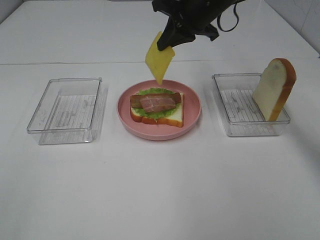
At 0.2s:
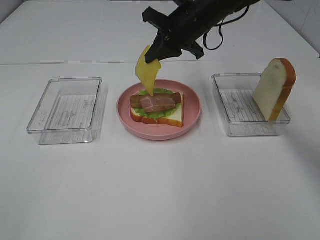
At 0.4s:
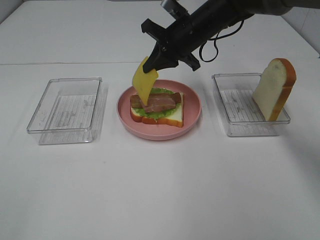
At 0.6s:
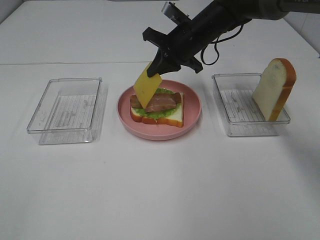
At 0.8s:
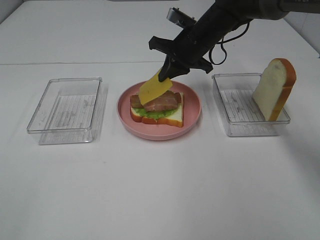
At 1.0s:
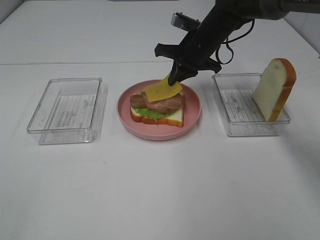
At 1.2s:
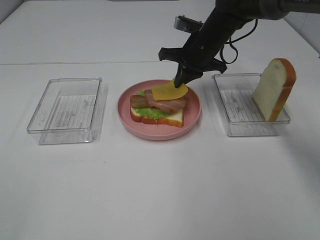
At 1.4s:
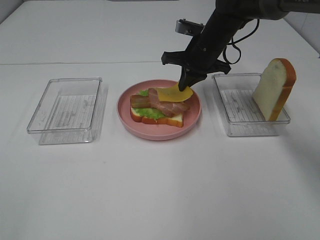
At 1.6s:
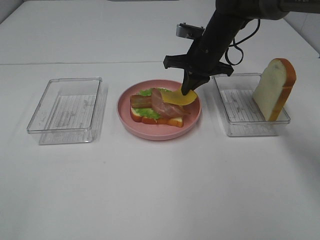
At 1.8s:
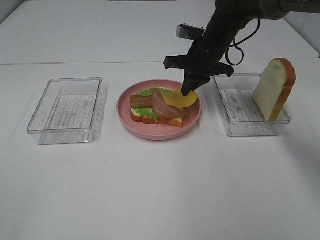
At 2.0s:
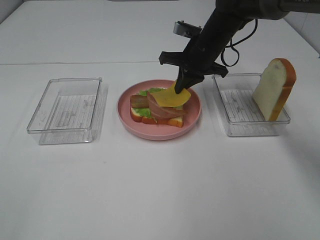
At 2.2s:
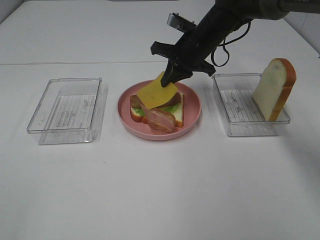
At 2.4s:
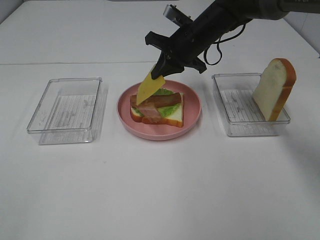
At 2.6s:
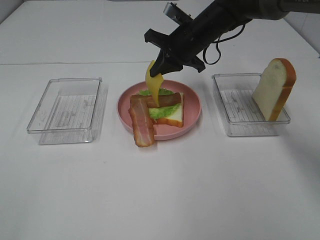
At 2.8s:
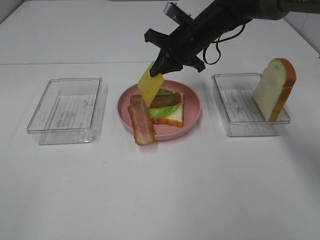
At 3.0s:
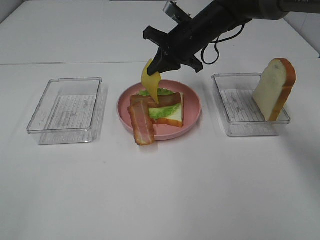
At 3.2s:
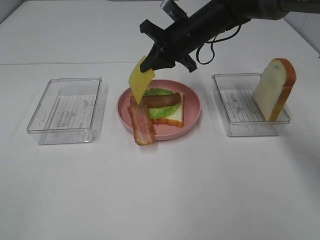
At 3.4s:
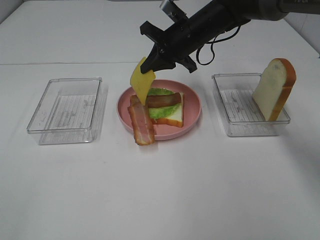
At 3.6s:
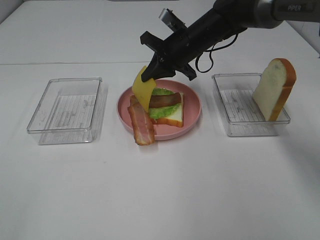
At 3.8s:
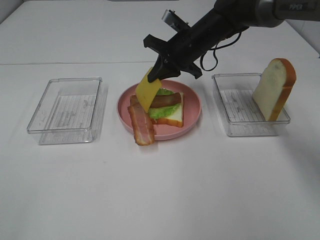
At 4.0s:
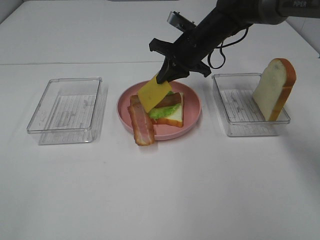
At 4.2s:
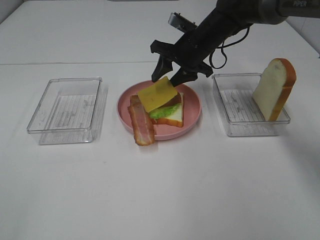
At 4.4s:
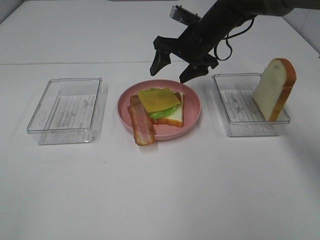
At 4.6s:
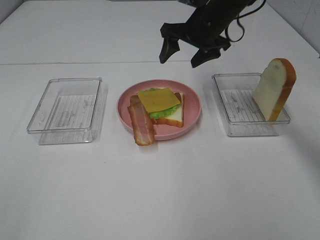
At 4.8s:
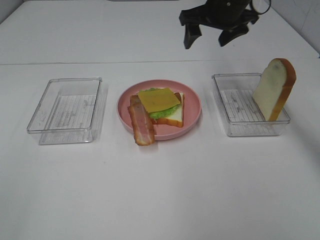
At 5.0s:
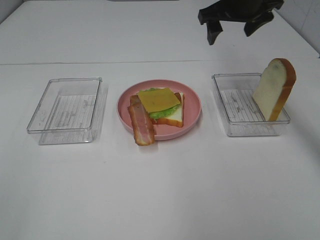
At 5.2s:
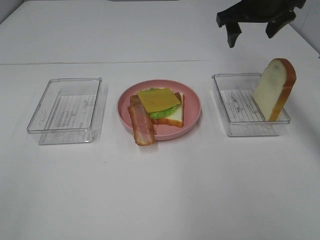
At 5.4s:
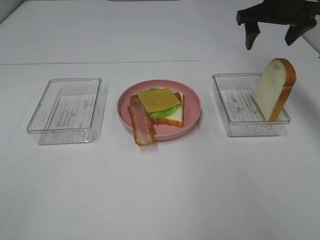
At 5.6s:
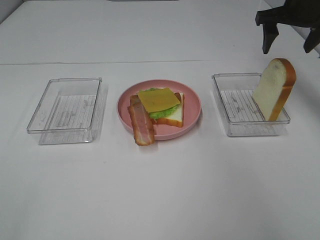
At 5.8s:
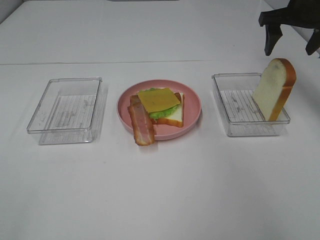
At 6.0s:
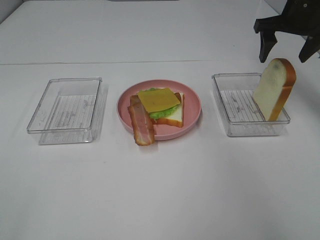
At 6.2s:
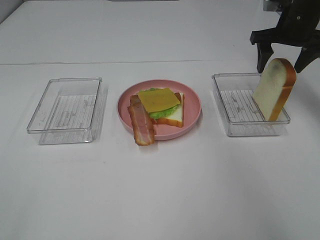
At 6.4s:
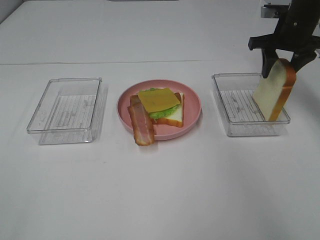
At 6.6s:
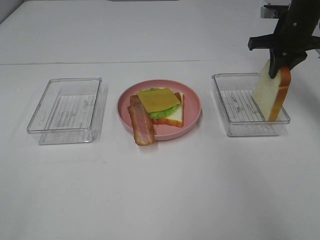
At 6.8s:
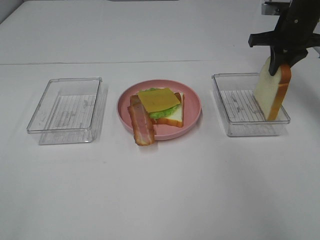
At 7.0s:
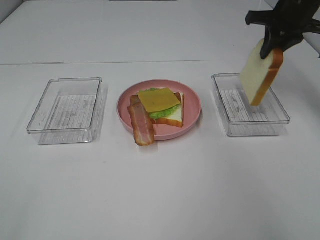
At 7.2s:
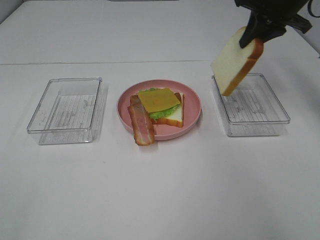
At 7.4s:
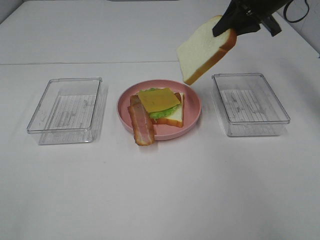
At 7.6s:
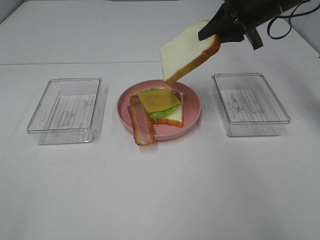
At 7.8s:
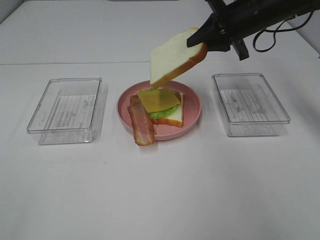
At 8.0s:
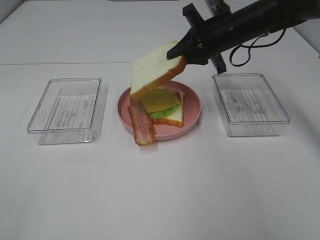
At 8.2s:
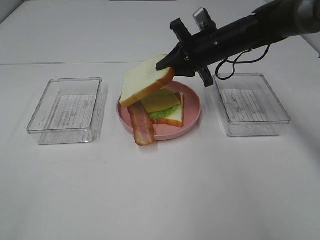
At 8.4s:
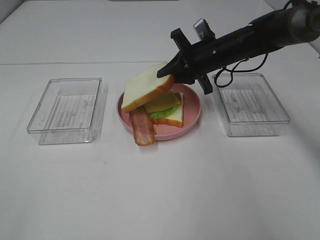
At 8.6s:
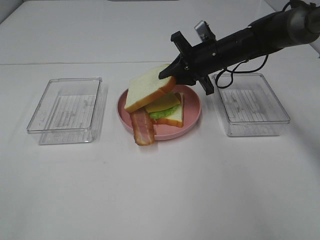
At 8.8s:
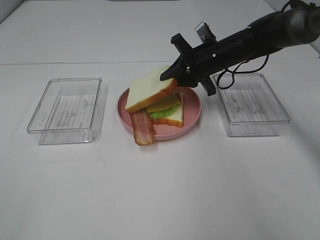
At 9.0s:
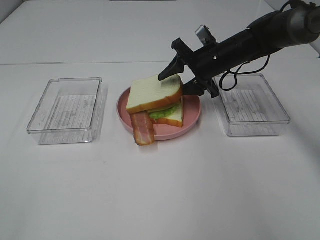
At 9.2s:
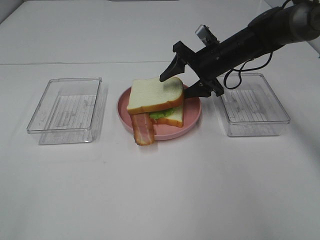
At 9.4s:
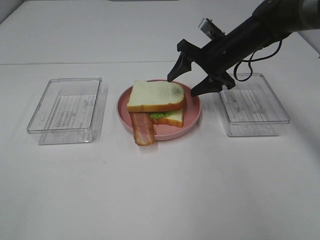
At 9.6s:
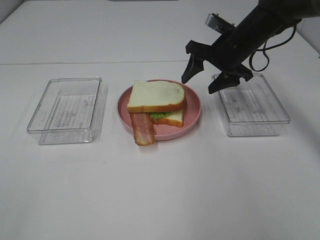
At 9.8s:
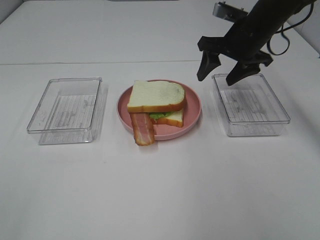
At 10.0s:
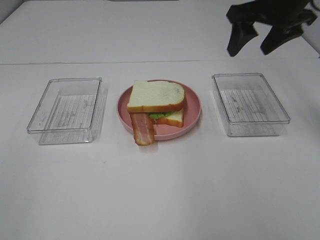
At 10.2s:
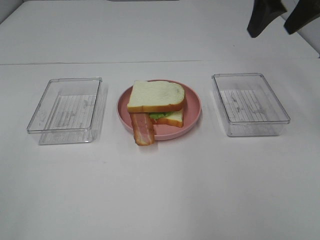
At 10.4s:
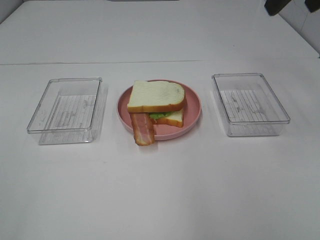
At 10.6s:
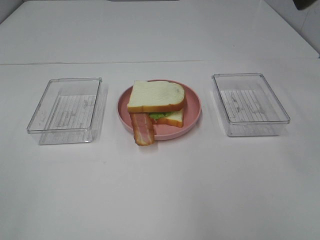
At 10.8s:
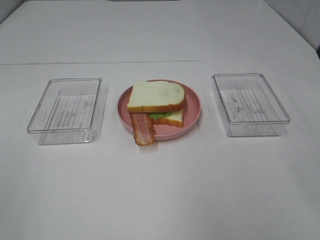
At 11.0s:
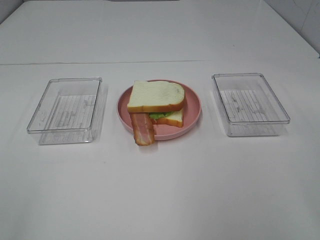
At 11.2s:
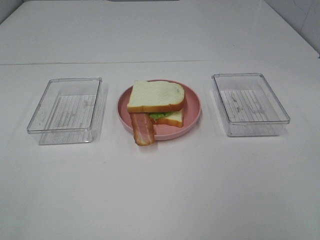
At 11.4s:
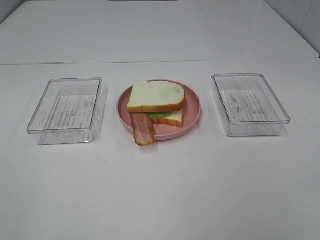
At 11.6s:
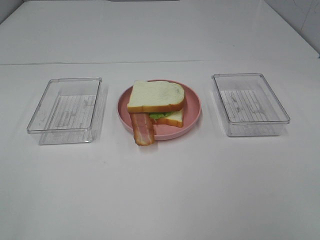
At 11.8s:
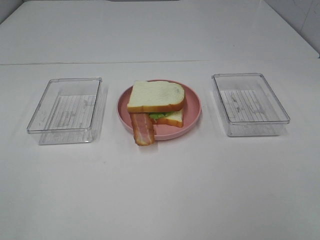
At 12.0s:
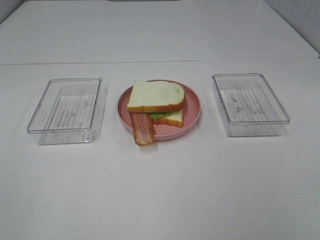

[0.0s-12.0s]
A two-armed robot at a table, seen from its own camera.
Task of the whole recording: Make sandwiches.
Step, 0.0s to 4.4s: Right hand:place the cheese slice on top of the bacon.
Step, 4.6s to 6.6s: Right hand:grab the bread slice.
Step, 6.8s to 9.8s: Right hand:place the bread slice on the cheese slice.
0.0s to 1.6s: The right gripper moves downward, roughly 10 cm.
3.0s to 4.4s: The right gripper opens its fingers.
4.4s to 6.0s: The right gripper moves to the right, roughly 15 cm.
6.0s to 7.6s: The right gripper goes about 5 cm to the left, and closes its fingers.
7.6s to 9.0s: The right gripper shifts approximately 15 cm downward and to the left, and opens its fingers.
9.0s to 10.4s: The right gripper goes roughly 30 cm upward and backward.

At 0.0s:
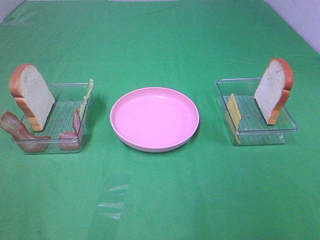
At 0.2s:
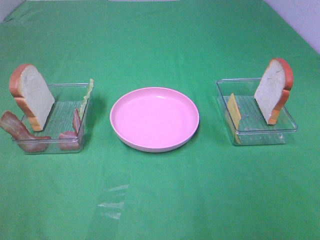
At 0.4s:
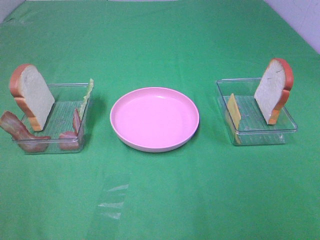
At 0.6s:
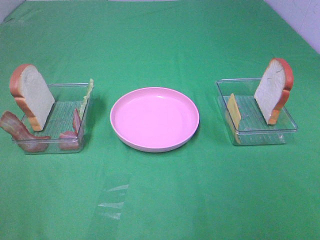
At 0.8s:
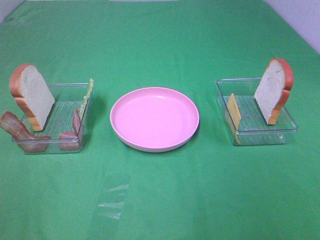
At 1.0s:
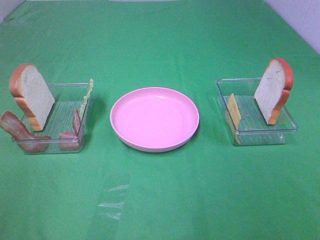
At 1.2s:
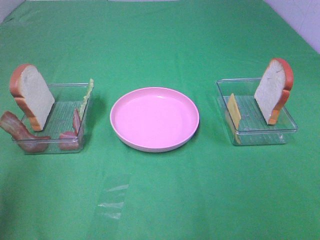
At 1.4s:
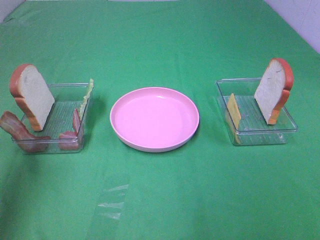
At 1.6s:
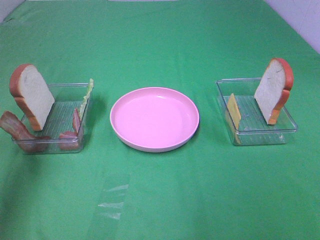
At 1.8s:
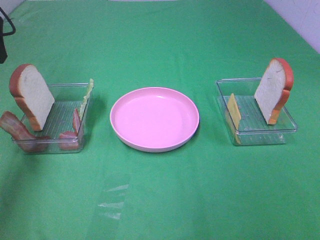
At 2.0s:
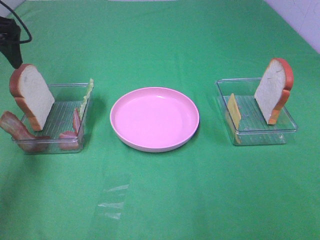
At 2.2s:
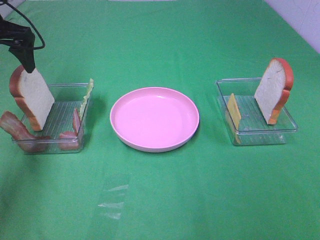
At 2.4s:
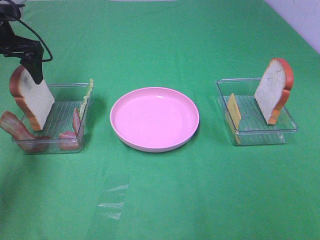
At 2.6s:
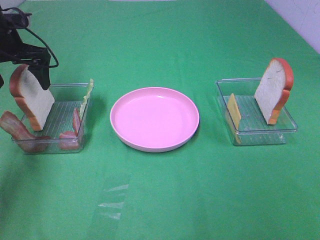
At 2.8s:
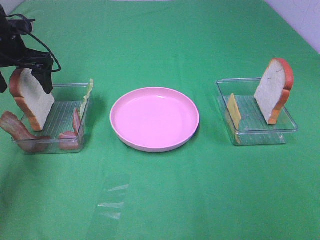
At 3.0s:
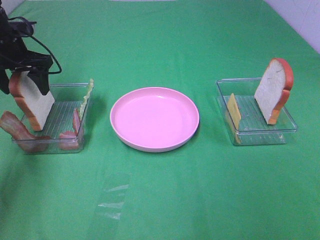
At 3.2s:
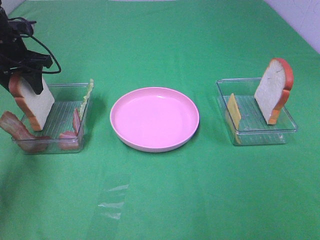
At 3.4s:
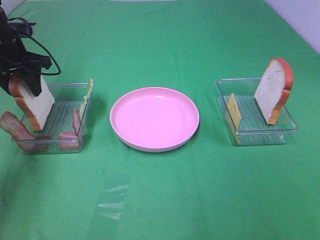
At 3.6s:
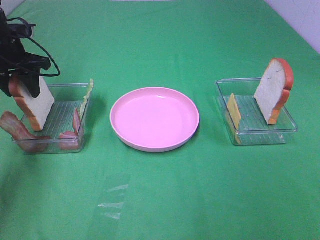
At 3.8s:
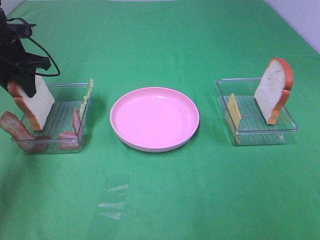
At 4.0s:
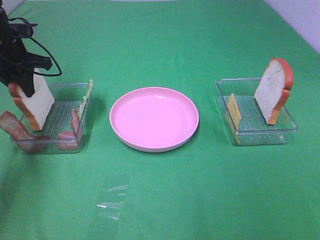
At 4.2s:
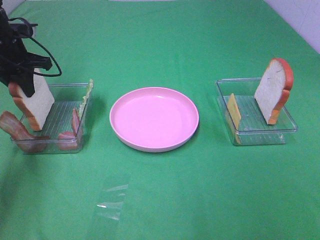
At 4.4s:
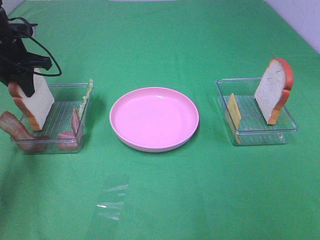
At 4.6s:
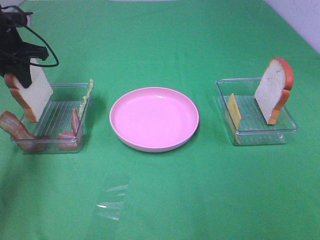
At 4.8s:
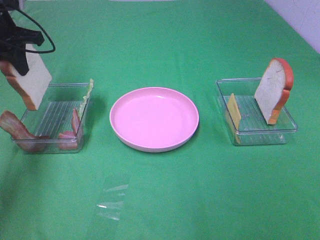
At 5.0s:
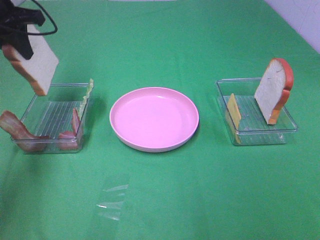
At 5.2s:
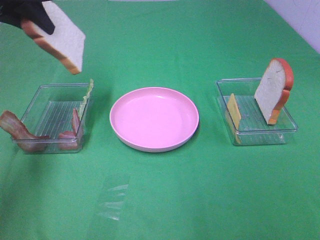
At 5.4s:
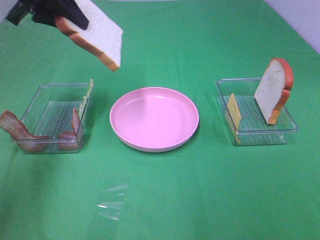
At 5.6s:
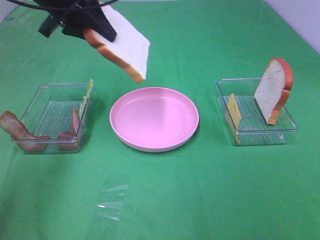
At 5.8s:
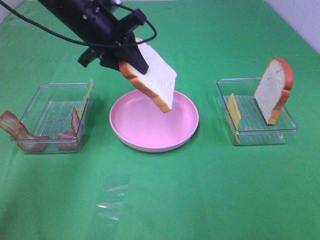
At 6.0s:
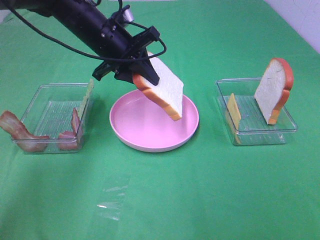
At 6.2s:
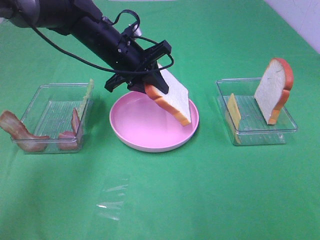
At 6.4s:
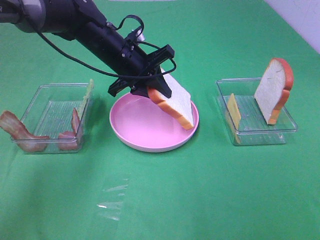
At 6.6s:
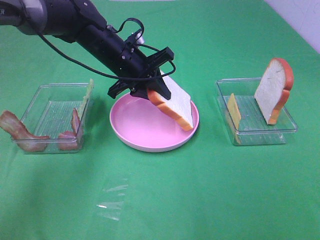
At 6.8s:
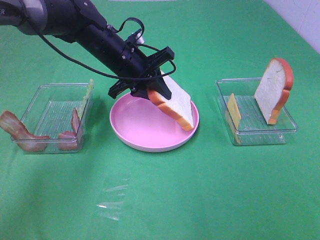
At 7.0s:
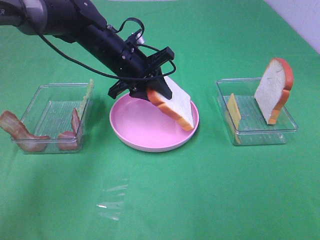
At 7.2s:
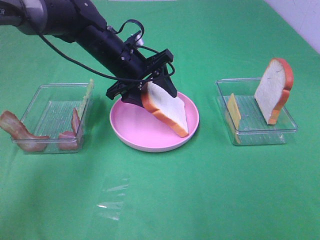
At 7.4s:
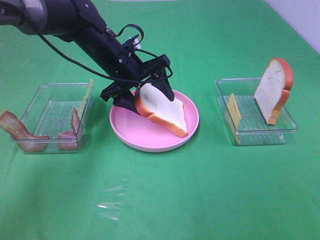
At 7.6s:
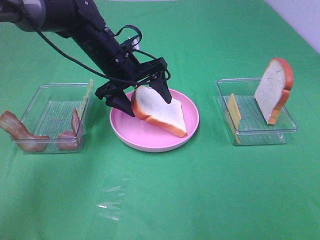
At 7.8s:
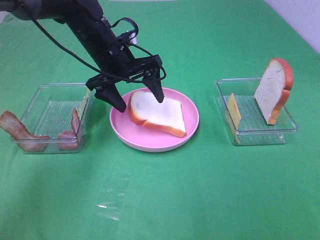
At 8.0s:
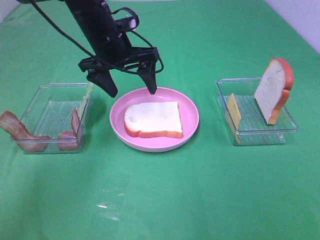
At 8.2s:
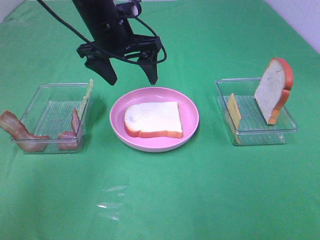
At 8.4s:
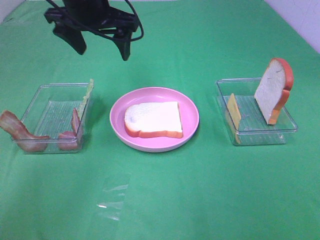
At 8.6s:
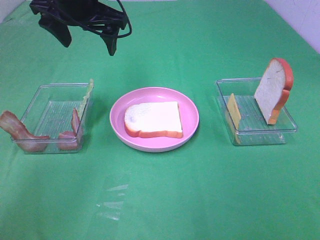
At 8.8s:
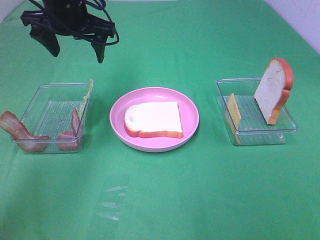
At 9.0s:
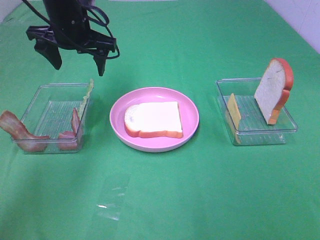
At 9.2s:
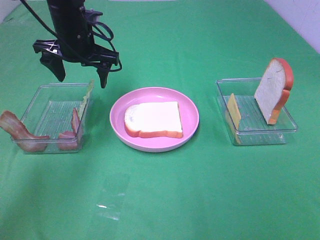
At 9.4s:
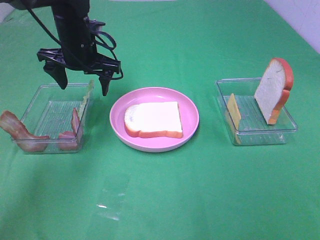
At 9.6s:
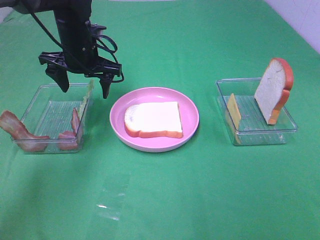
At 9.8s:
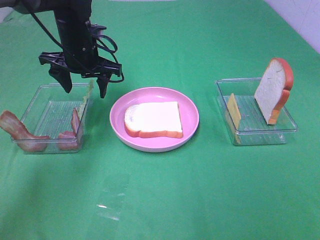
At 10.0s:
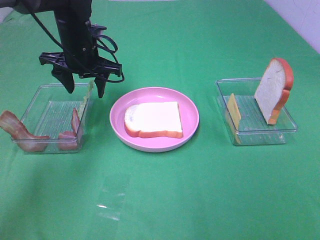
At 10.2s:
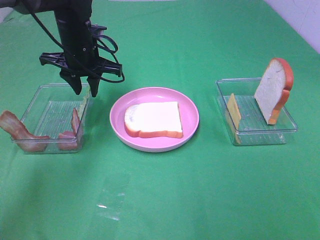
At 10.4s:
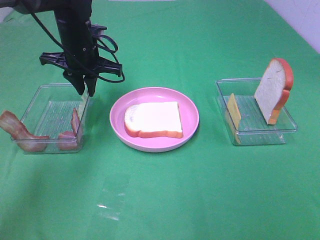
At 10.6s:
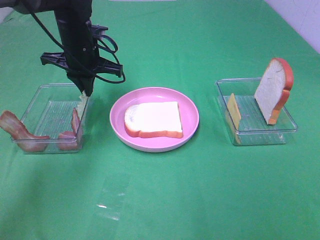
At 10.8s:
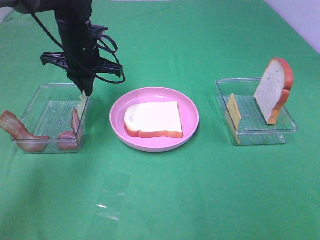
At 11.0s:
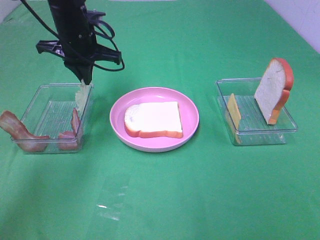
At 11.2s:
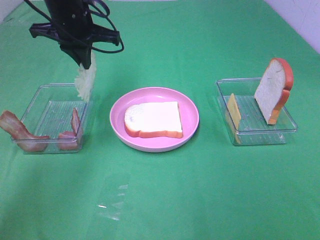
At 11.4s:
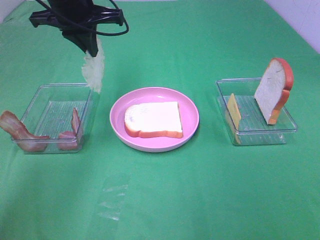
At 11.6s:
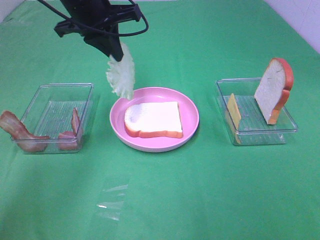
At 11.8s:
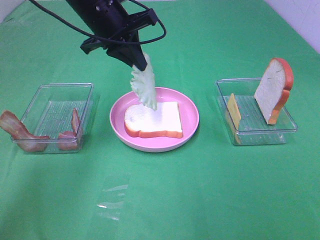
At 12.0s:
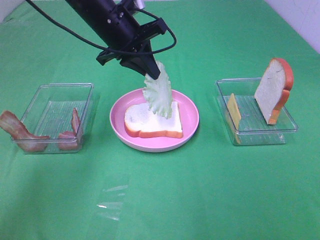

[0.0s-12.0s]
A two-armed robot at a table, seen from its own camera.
Task of the whole recording: Make sandwiches.
Step, 0.0s to 4.0s: Left hand:grab the bread slice.
Step, 4.2s to 7.8s: Left hand:place the bread slice on the plate.
Step, 8.0s to 10.4s: Left hand:grab the lettuce slice.
0.0s to 1.6s: The left gripper goes about 30 cm forward.
1.6s to 3.0s: The left gripper heads downward and forward, covering some 20 cm.
3.0s to 4.4s: The left gripper closes its fingers.
4.4s to 6.0s: The left gripper heads to the right, covering some 20 cm.
6.0s to 7.6s: The left gripper opens its fingers.
7.6s to 9.0s: The left gripper shifts approximately 10 cm upward and to the left.
9.0s to 10.4s: The left gripper is displaced downward by roughly 5 cm, and closes up.
10.4s to 12.0s: The left gripper moves to the right and upward, roughly 10 cm.
